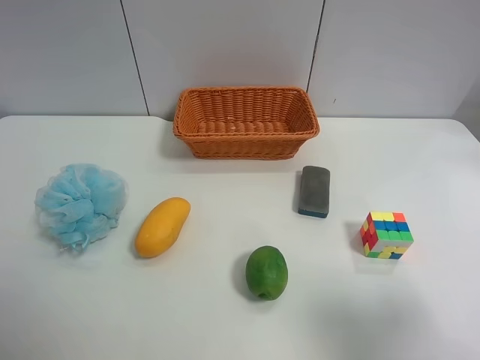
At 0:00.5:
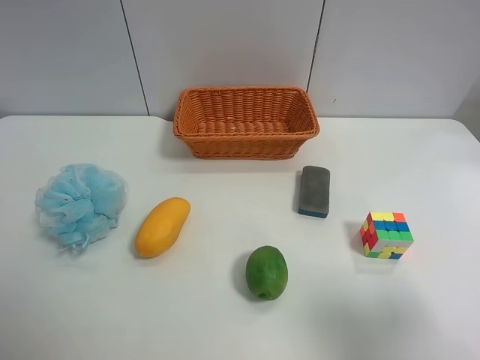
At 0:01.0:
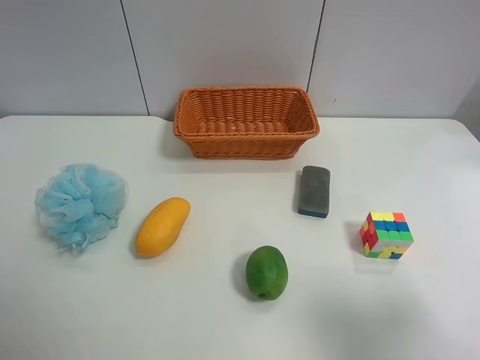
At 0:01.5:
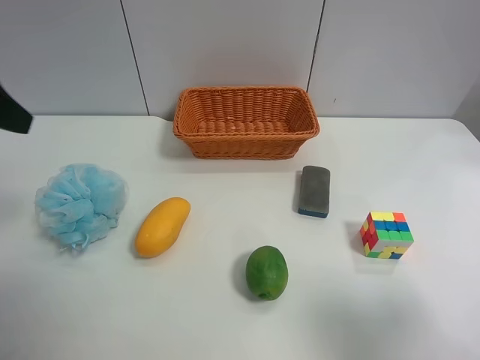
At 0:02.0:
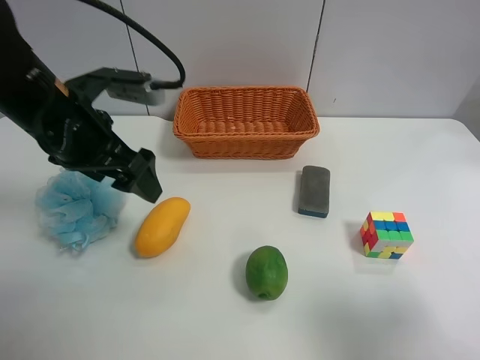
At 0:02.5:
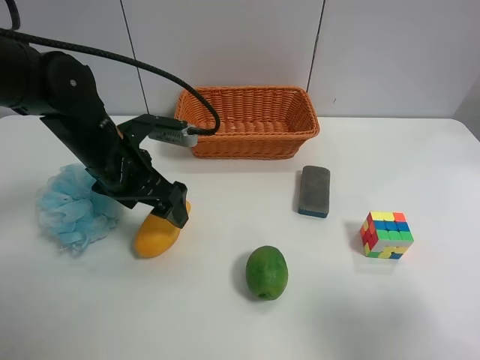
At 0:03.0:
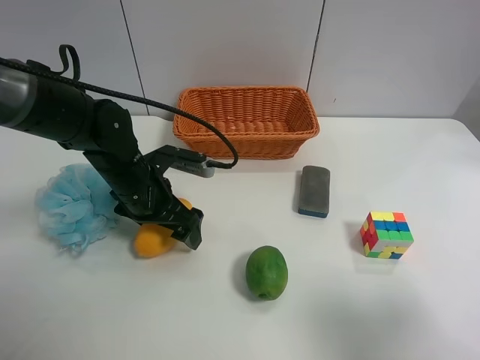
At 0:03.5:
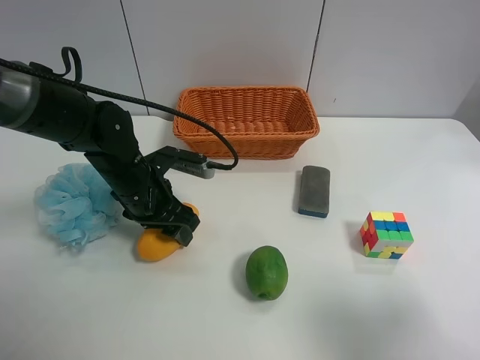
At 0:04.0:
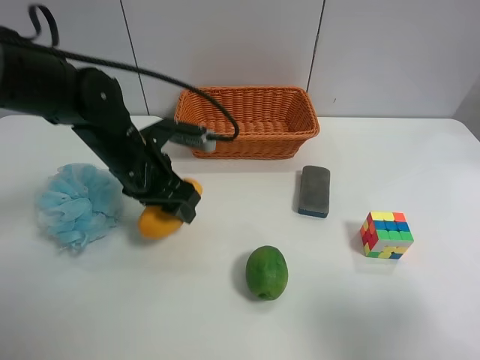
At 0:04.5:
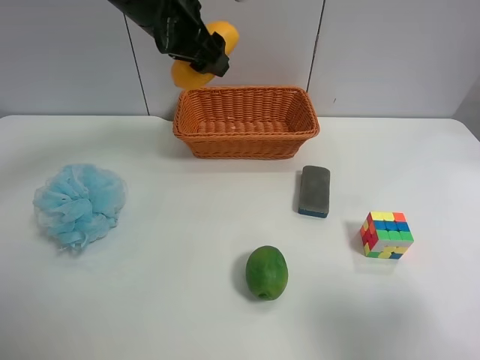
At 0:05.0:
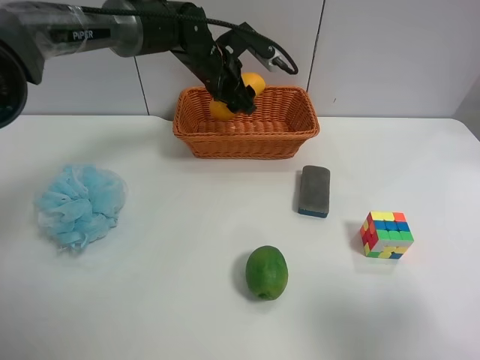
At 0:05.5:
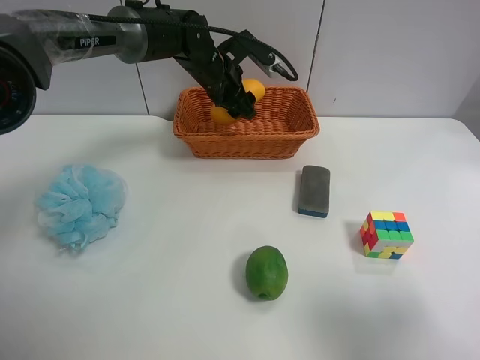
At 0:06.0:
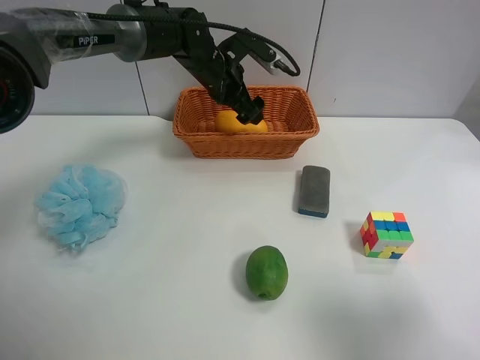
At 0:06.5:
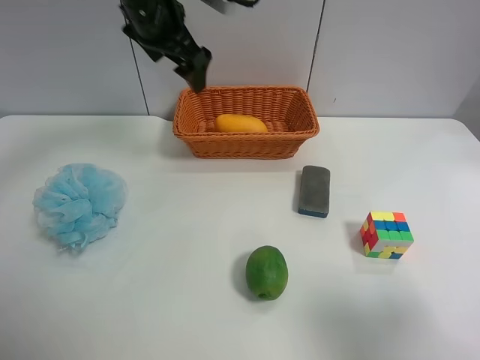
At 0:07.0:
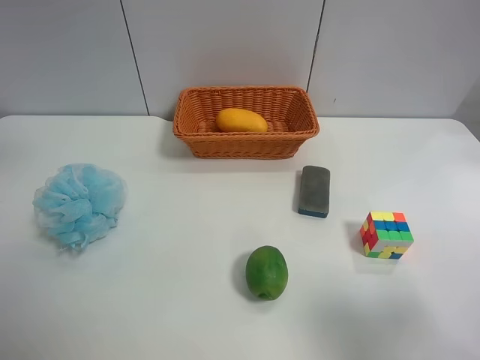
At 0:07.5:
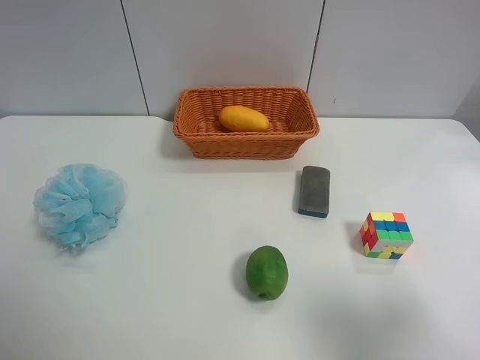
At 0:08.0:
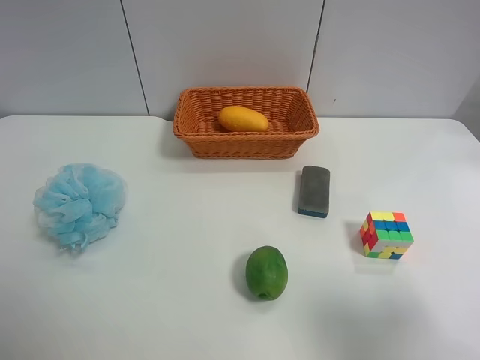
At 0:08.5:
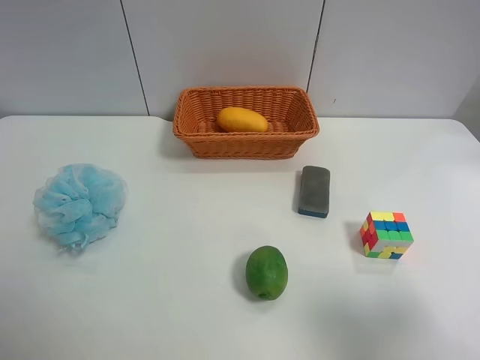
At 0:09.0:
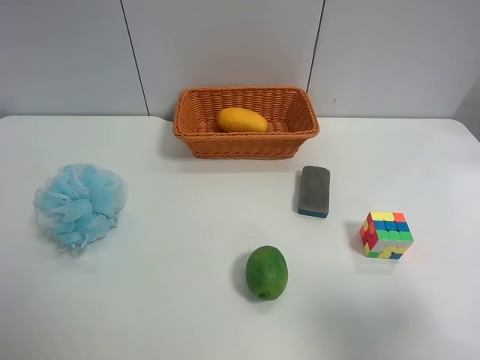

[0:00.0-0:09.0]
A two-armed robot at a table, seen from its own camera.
Task of the whole recording: use the left gripper to grab items from the table and place them in the basket.
Step, 0:00.0 to 0:03.0: Grasp the mango with the left gripper.
Step, 0:03.5 to 0:05.5: Place the mango into the basket with the left gripper.
0:00.0 to 0:02.0: The left gripper shifts approximately 30 cm forward and to the right.
0:02.0 to 0:04.5: The left gripper moves forward and to the right, approximately 15 cm, reaches roughly 10 cm downward, then returns, and closes its fingers.
0:04.5 to 0:07.0: The left gripper shifts about 25 cm upward, to the left and backward, and opens its fingers.
